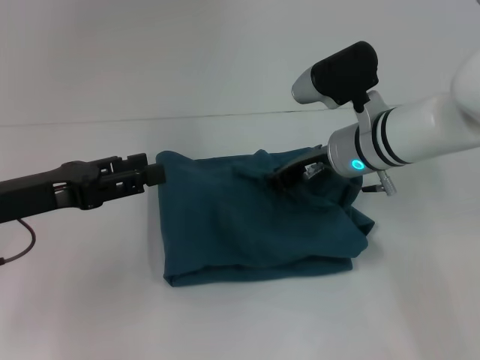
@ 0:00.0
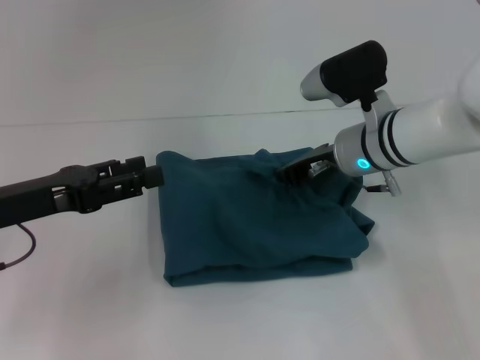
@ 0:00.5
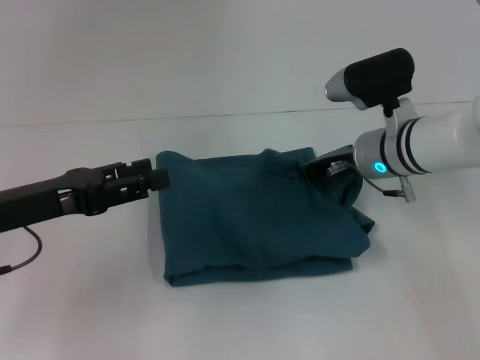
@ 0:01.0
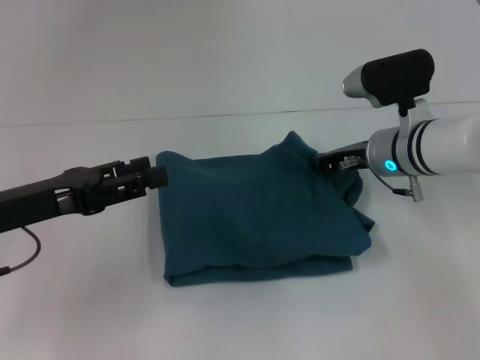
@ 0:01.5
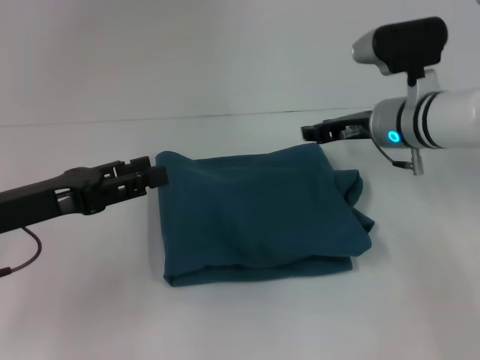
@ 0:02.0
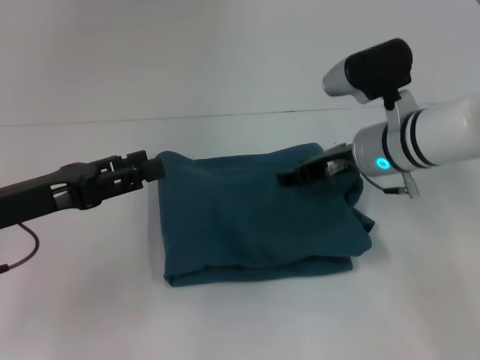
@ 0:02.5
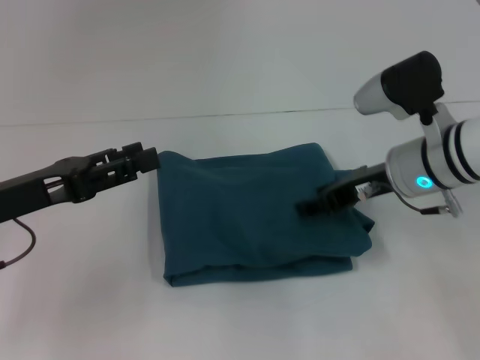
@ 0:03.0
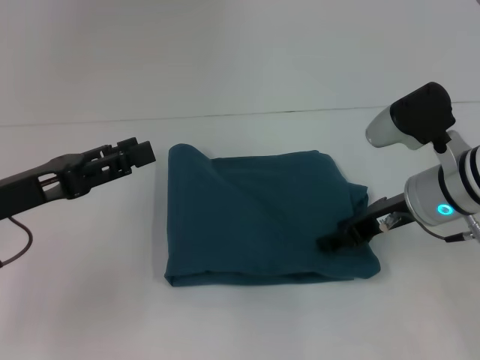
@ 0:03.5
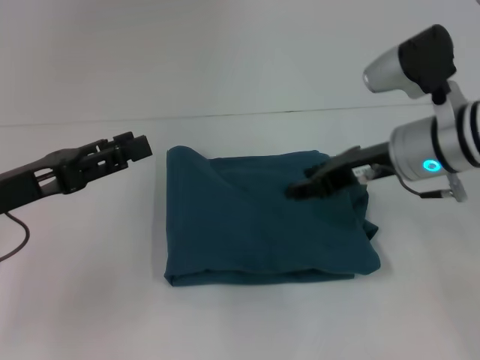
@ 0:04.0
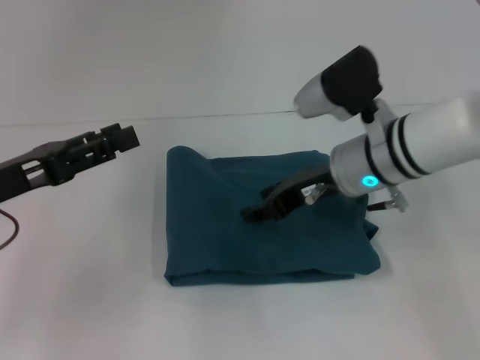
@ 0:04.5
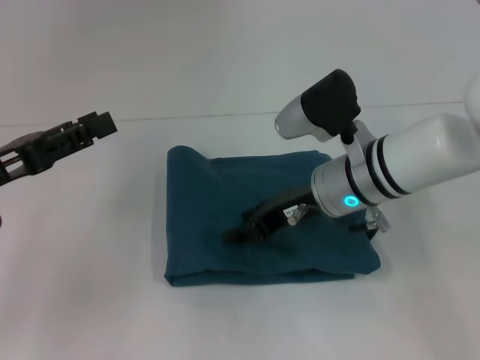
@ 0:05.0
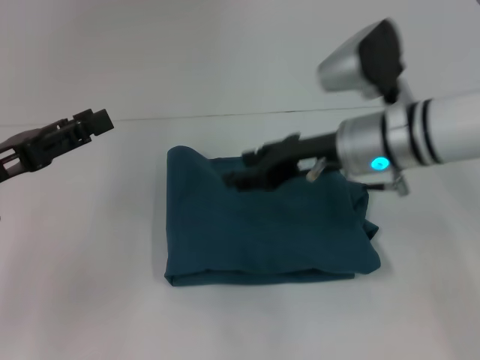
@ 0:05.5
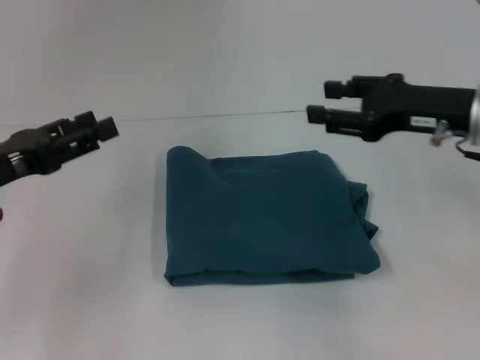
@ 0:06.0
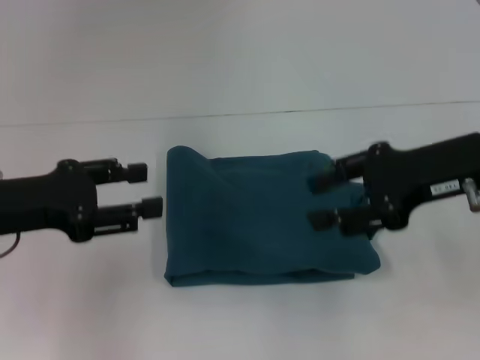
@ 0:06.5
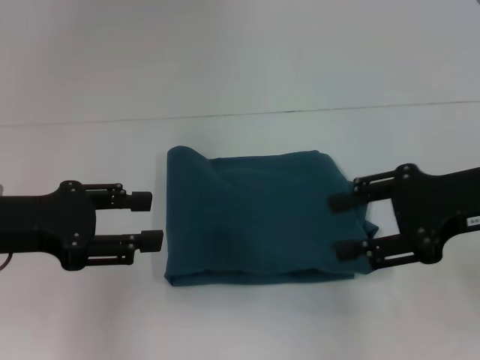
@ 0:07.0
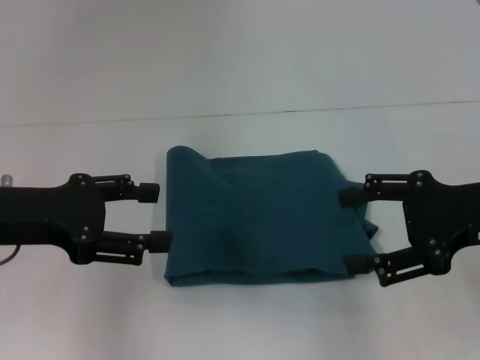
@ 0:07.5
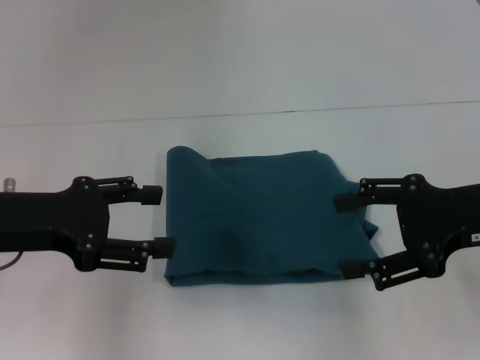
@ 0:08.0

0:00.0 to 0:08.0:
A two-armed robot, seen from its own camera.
0:02.0 to 0:04.0: The right gripper travels backward by roughly 5 cm.
0:04.0 to 0:06.0: The right gripper heads to the right, covering approximately 5 cm.
0:06.0 to 0:08.0: The right gripper heads backward, covering approximately 5 cm, and opens its fingers.

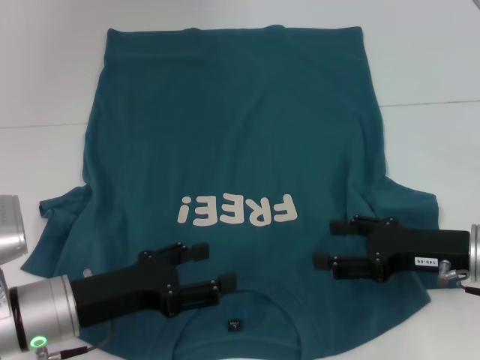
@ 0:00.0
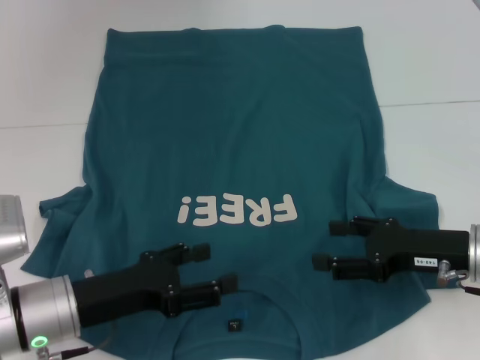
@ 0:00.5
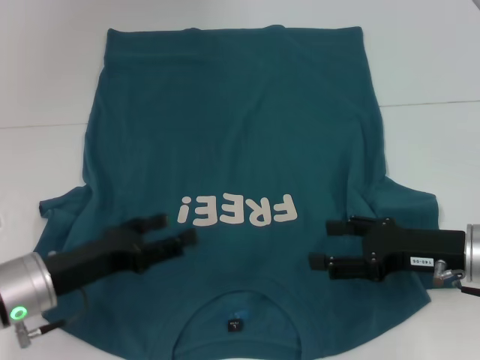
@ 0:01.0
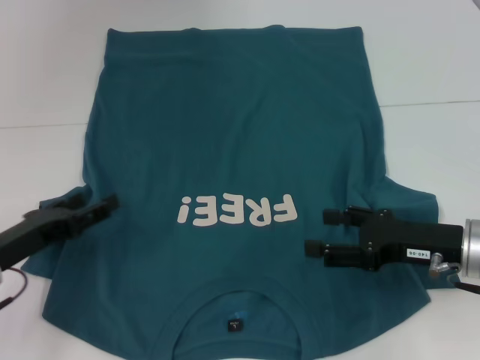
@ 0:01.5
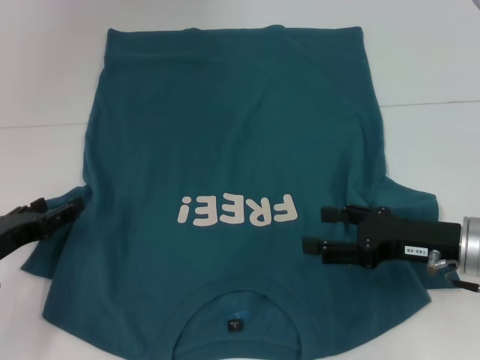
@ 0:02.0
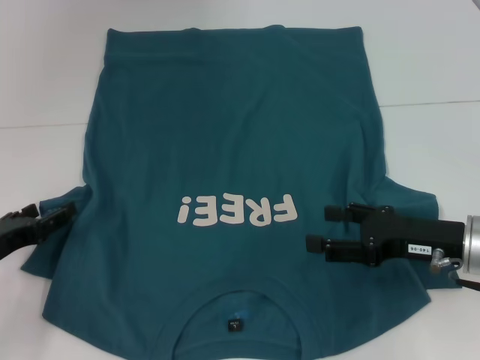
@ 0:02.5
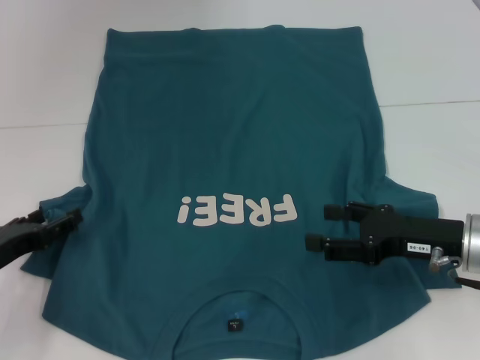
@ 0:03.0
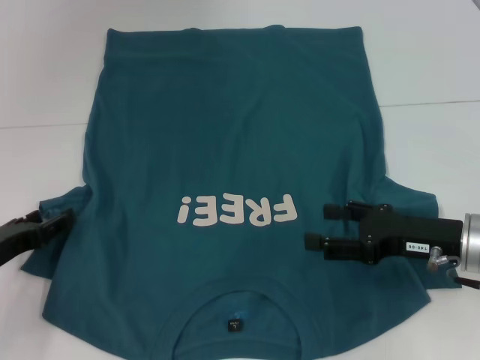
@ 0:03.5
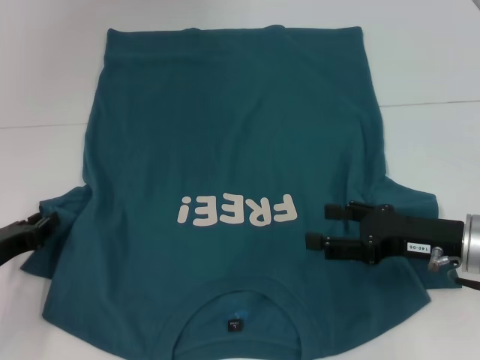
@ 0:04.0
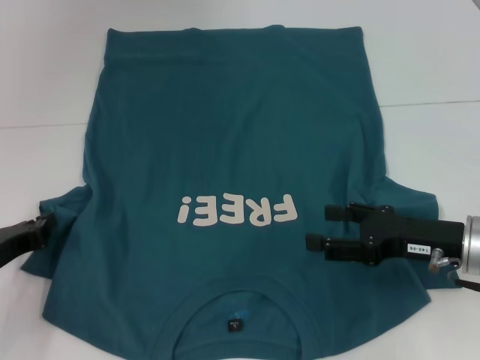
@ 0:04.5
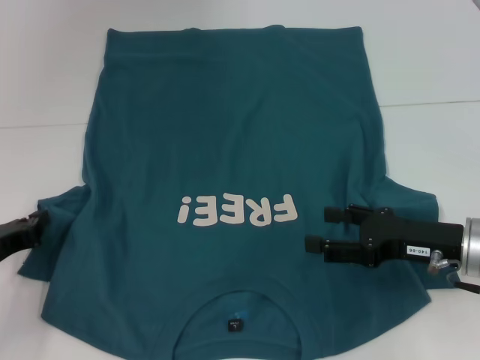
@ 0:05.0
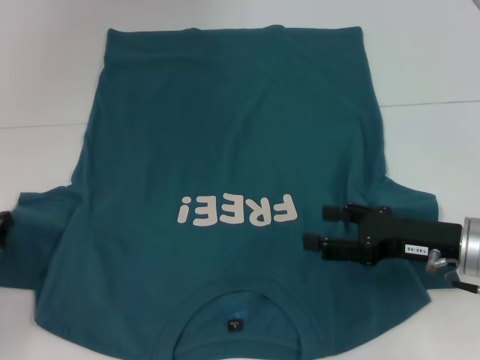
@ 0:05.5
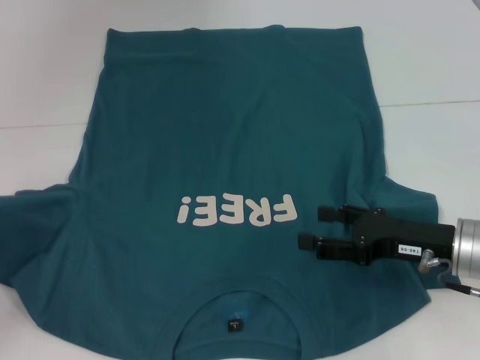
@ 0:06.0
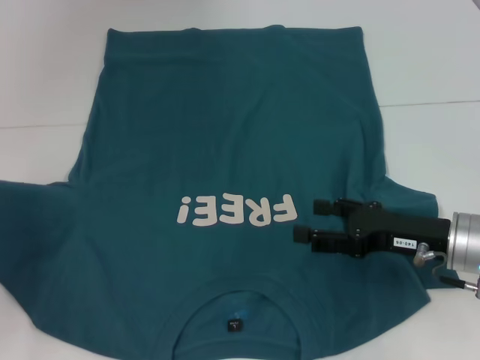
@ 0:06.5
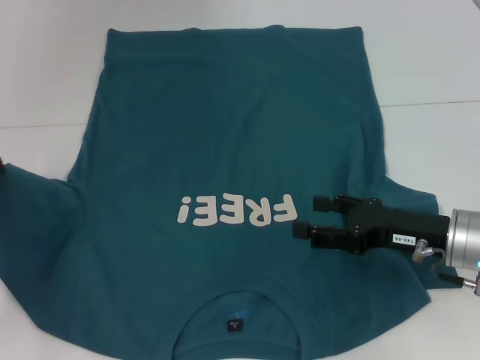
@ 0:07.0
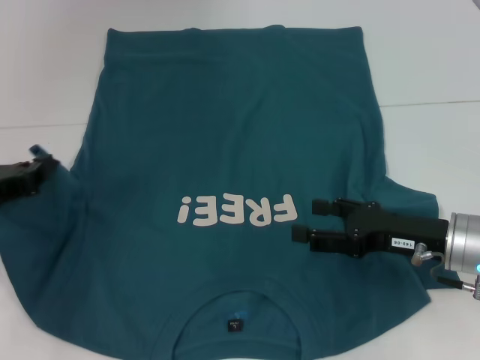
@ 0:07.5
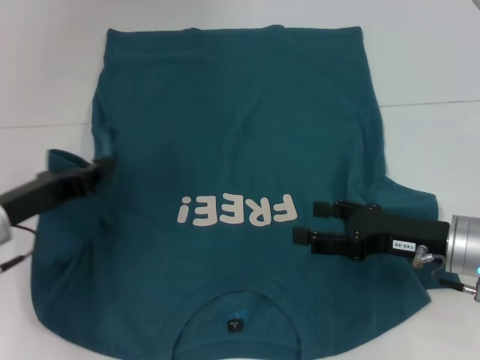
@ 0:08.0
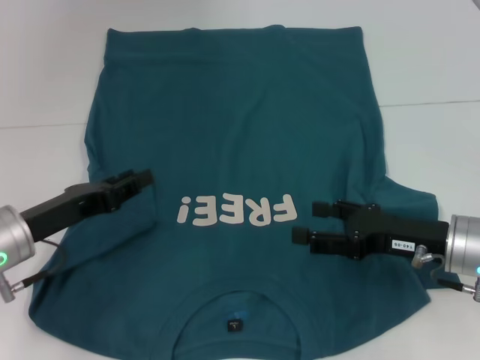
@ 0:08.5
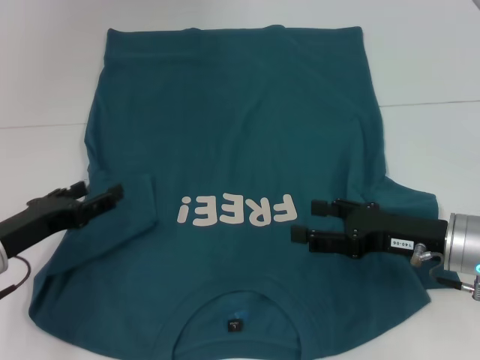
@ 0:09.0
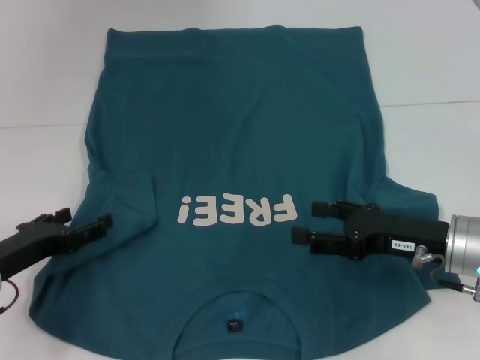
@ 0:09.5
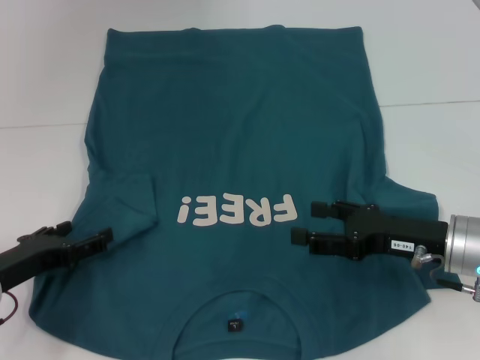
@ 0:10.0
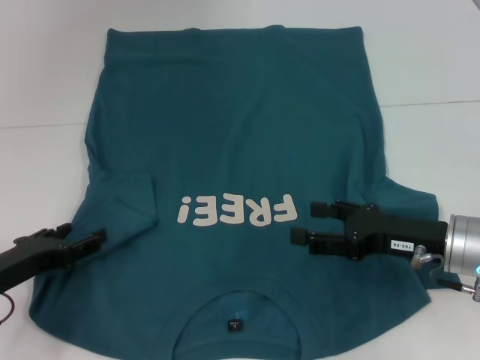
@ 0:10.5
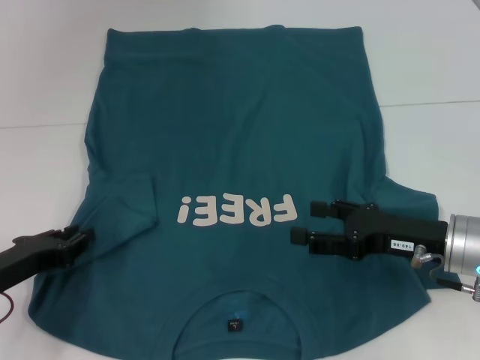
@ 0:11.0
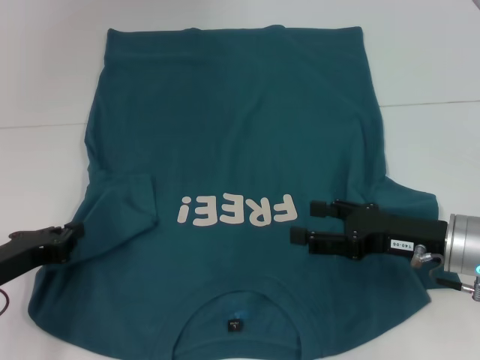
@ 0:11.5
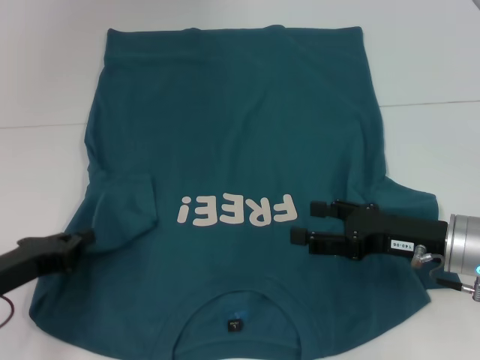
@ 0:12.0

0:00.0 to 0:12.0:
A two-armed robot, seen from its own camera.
0:00.0 to 0:02.0: The left gripper heads to the left, covering approximately 10 cm.
0:02.0 to 0:04.0: The left gripper closes its fingers.
0:04.0 to 0:06.0: The left gripper moves roughly 5 cm, and closes its fingers.
0:06.0 to 0:08.0: The left gripper goes some 10 cm to the right.
0:08.0 to 0:10.0: The left gripper heads downward, covering roughly 5 cm, and opens up.
0:10.0 to 0:12.0: The left gripper closes its fingers.

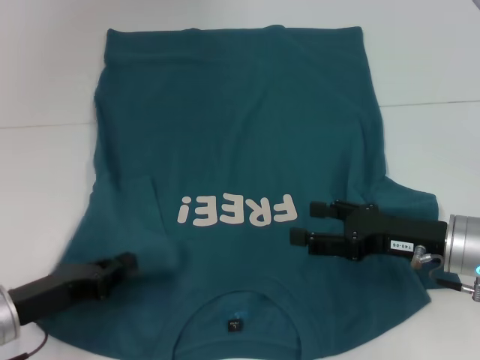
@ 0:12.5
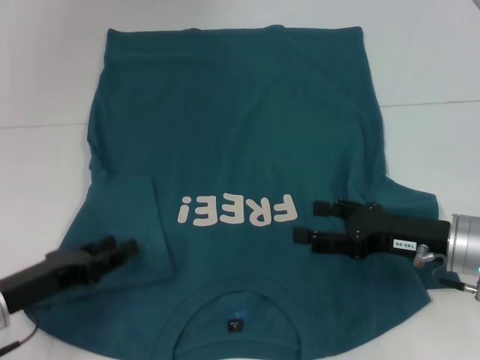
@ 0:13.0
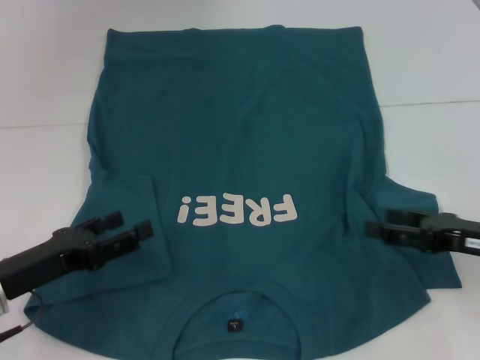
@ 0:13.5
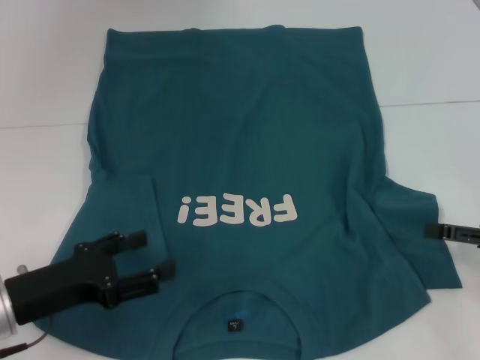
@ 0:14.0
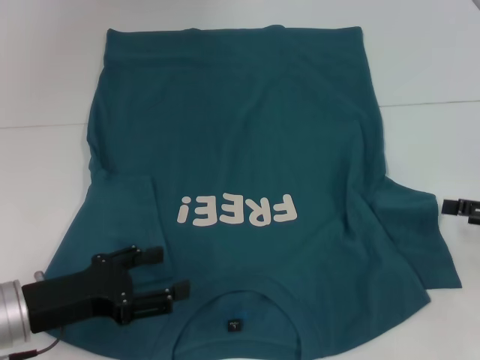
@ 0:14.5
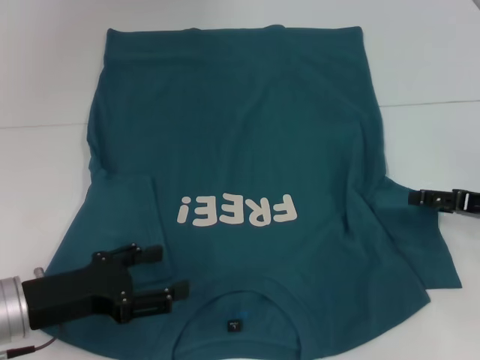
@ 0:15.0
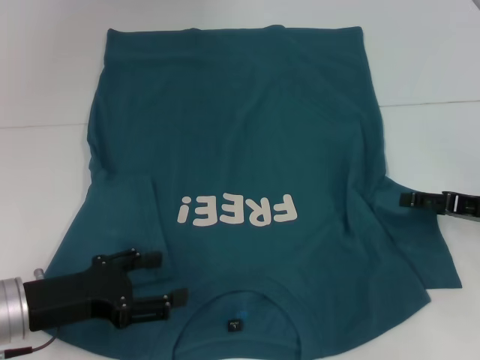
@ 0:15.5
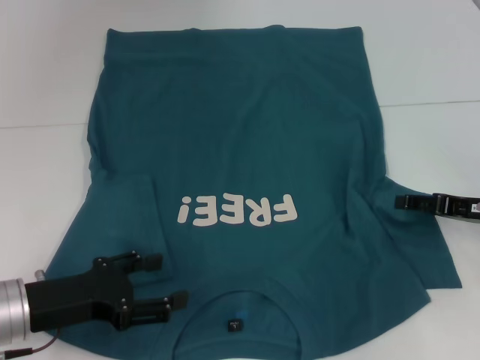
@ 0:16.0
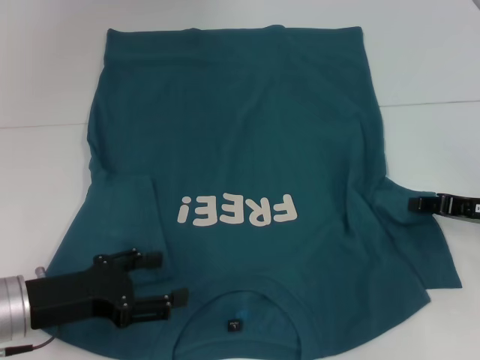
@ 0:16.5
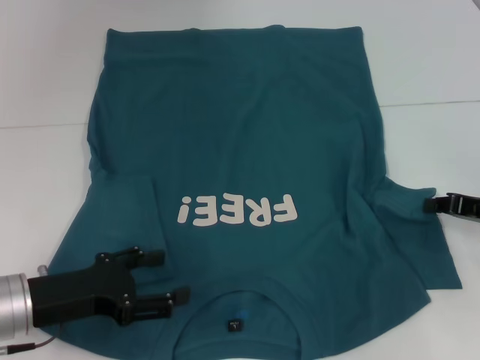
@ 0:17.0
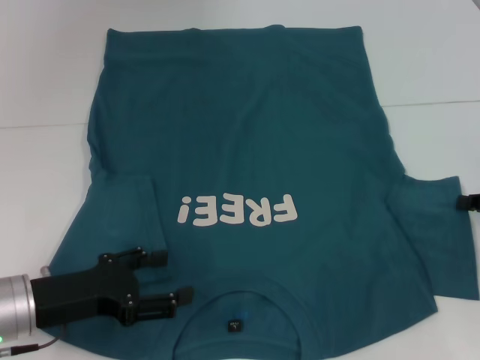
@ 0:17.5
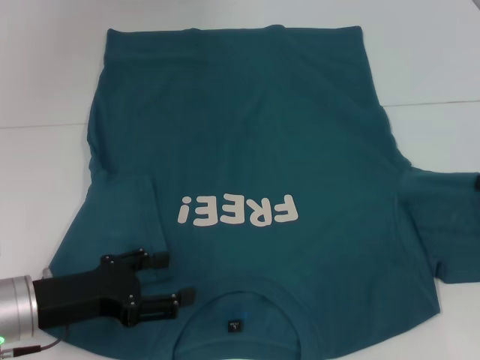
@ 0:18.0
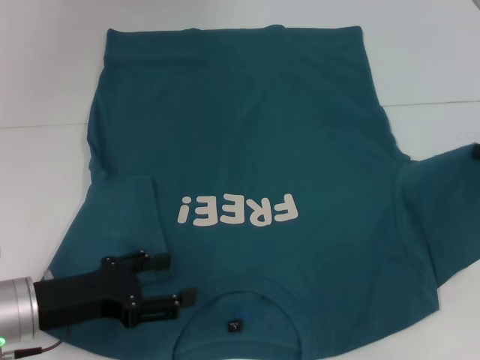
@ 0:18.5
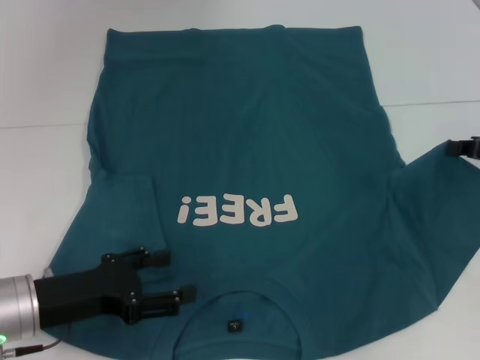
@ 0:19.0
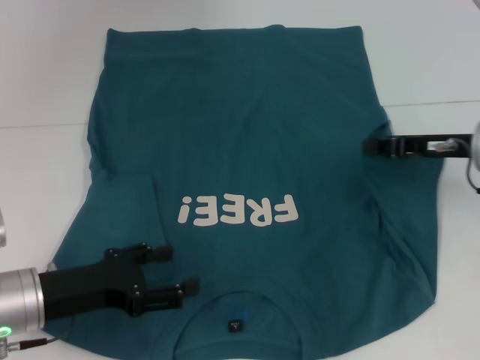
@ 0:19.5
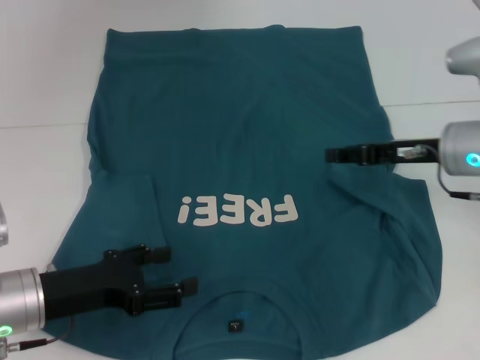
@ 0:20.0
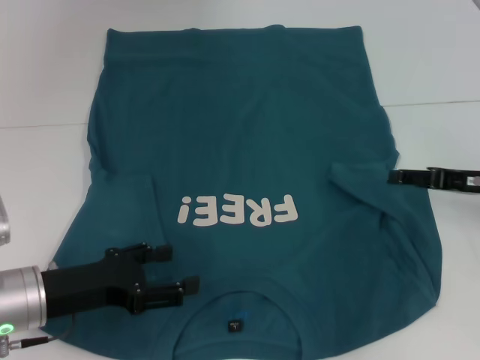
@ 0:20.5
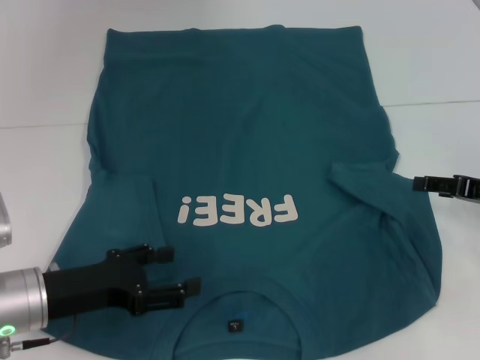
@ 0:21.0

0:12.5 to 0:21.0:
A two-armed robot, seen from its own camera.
0:12.5 to 0:14.5: The left gripper opens. The right gripper shifts approximately 15 cm to the right.
0:14.5 to 0:16.5: The right gripper ends up approximately 5 cm from where it was, and closes its fingers.
0:16.5 to 0:19.0: The right gripper goes approximately 5 cm upward, and closes its fingers.
0:19.0 to 0:21.0: The right gripper goes to the left and returns, approximately 10 cm each way, and opens its fingers.
